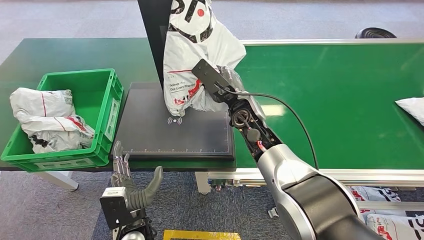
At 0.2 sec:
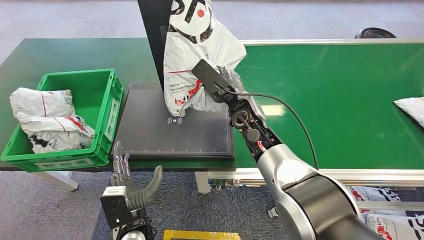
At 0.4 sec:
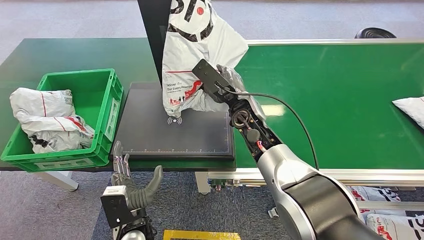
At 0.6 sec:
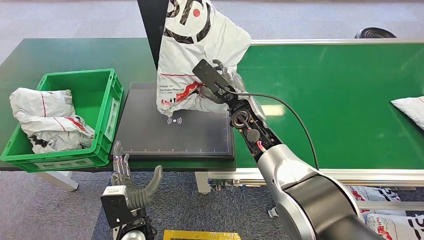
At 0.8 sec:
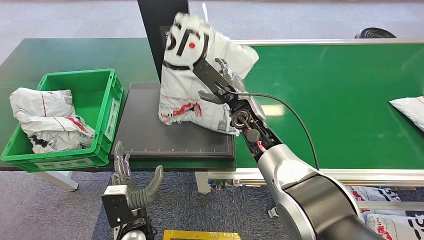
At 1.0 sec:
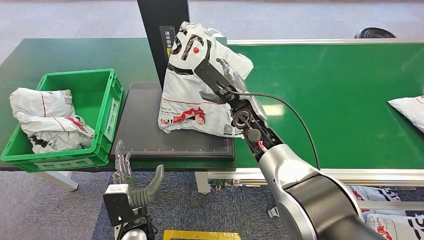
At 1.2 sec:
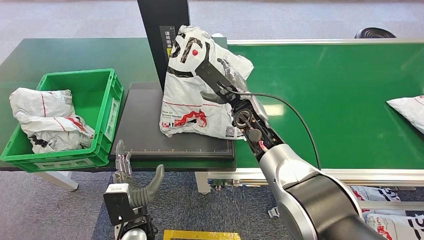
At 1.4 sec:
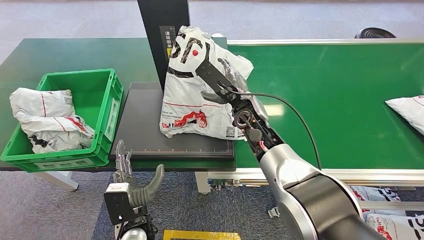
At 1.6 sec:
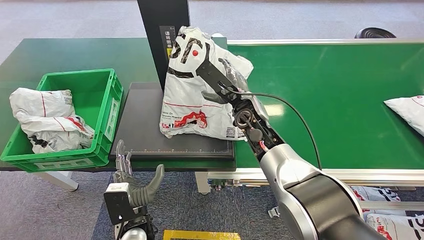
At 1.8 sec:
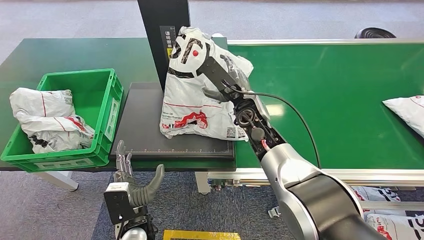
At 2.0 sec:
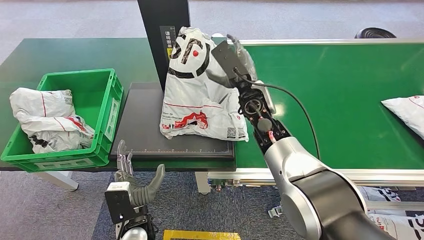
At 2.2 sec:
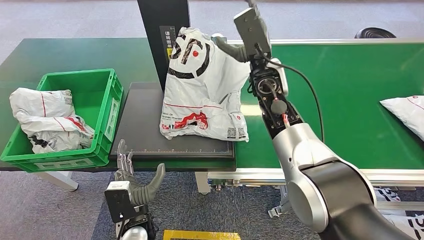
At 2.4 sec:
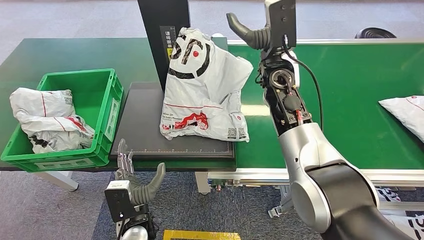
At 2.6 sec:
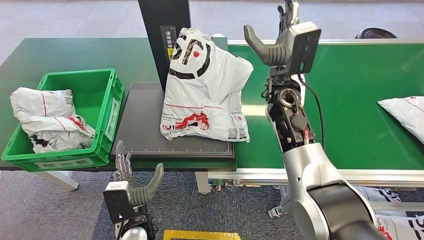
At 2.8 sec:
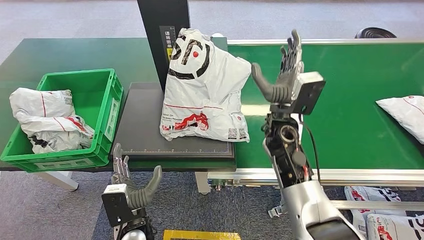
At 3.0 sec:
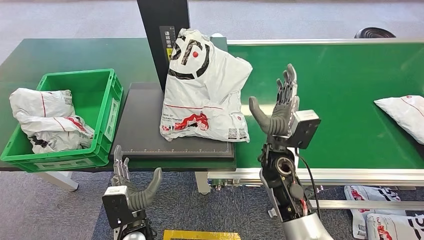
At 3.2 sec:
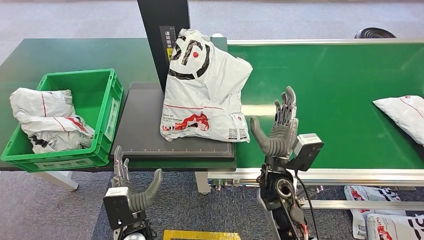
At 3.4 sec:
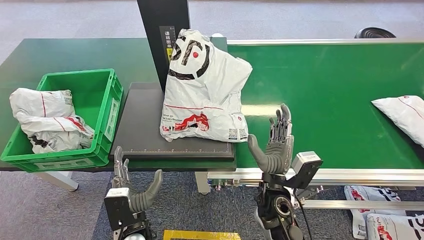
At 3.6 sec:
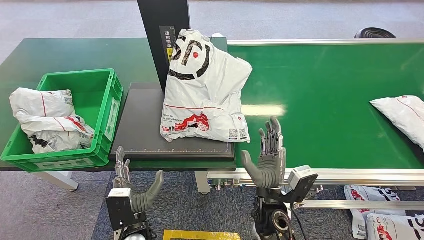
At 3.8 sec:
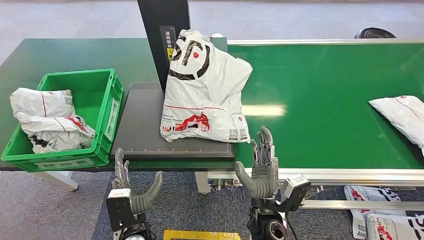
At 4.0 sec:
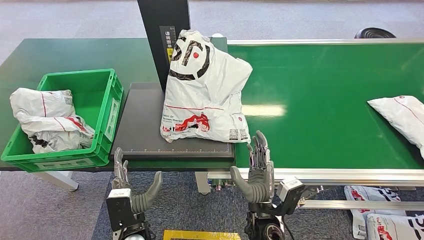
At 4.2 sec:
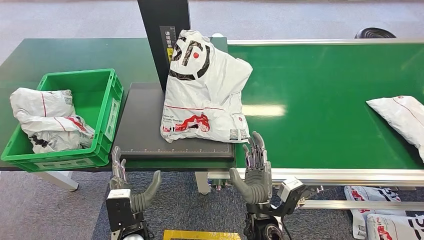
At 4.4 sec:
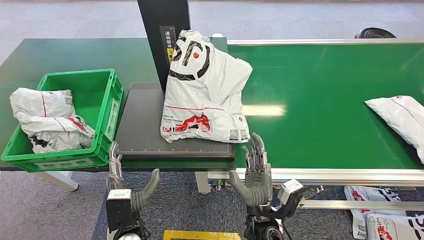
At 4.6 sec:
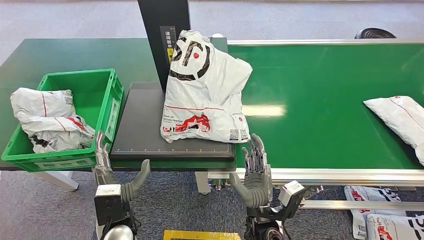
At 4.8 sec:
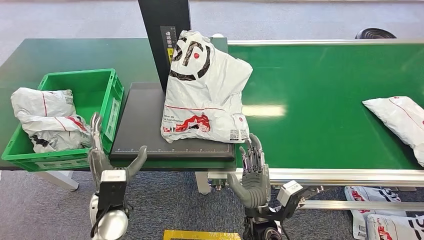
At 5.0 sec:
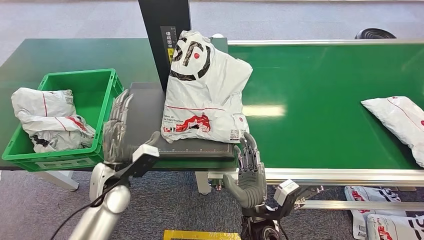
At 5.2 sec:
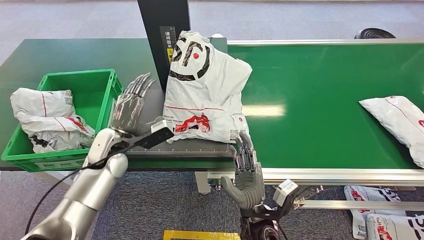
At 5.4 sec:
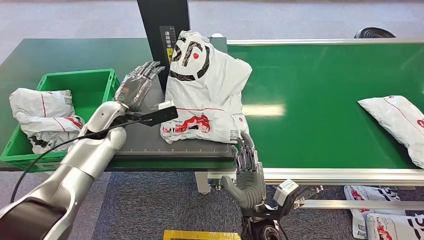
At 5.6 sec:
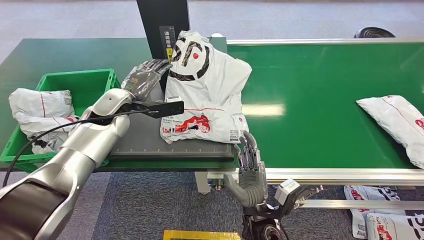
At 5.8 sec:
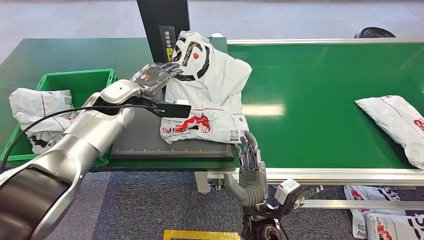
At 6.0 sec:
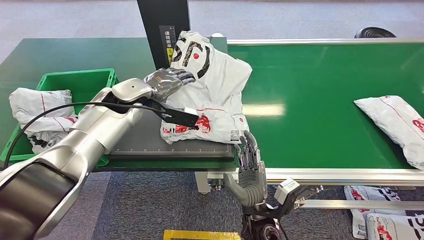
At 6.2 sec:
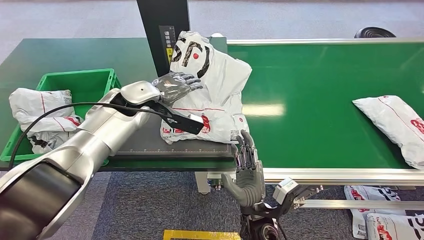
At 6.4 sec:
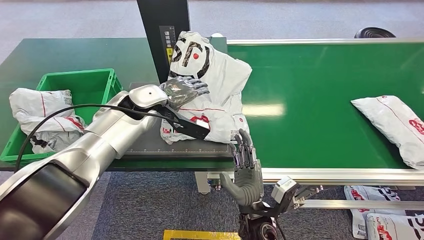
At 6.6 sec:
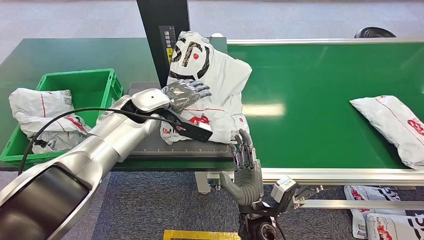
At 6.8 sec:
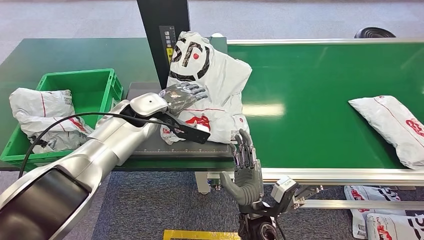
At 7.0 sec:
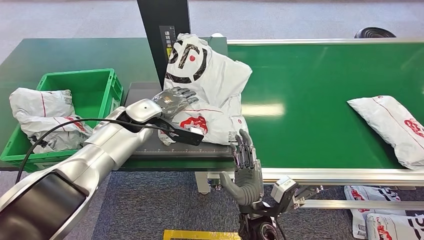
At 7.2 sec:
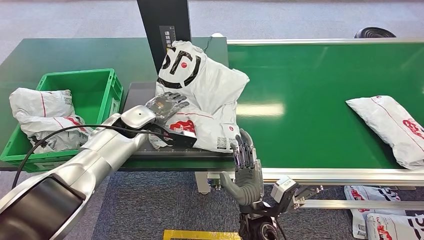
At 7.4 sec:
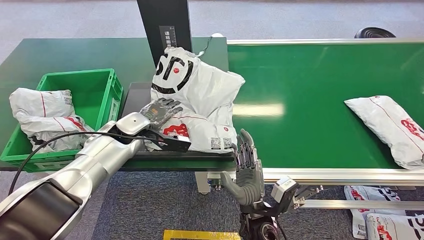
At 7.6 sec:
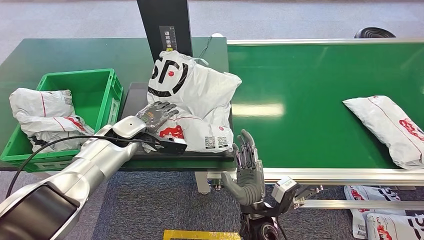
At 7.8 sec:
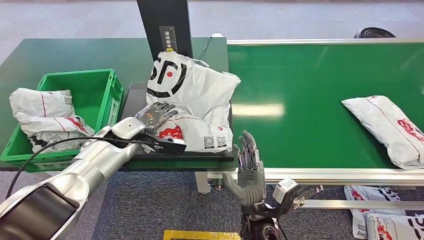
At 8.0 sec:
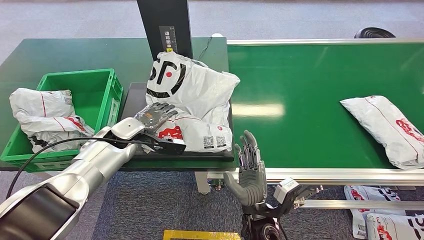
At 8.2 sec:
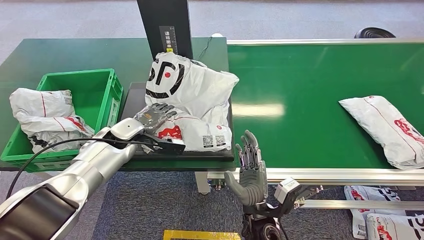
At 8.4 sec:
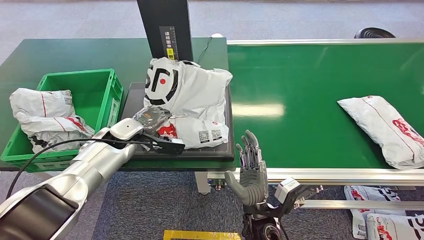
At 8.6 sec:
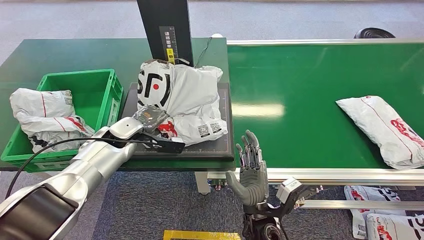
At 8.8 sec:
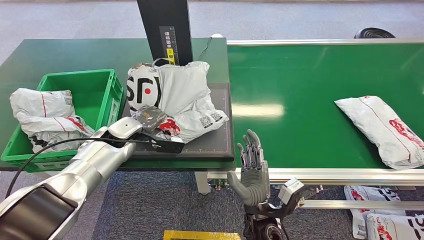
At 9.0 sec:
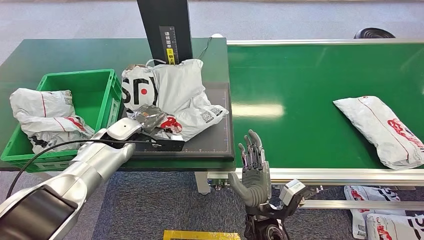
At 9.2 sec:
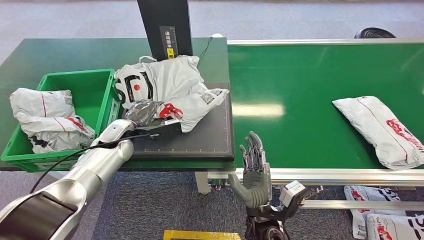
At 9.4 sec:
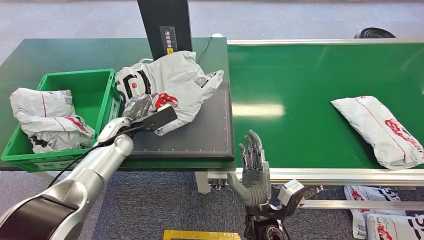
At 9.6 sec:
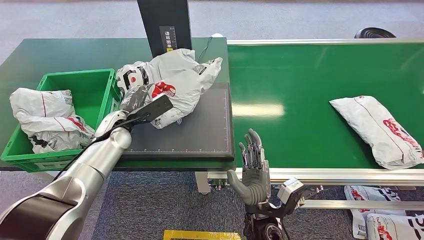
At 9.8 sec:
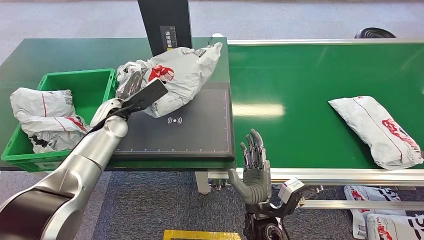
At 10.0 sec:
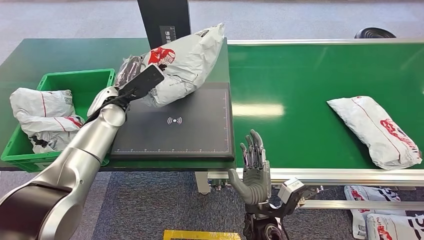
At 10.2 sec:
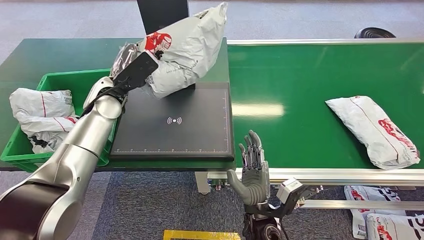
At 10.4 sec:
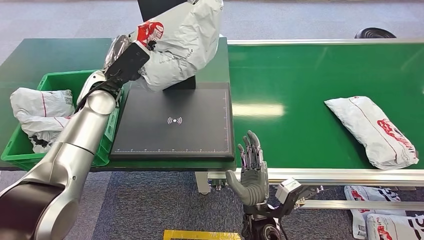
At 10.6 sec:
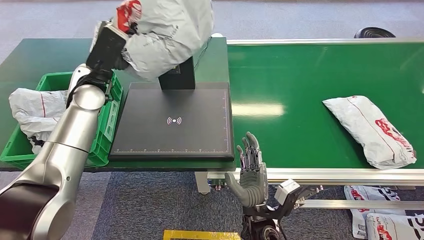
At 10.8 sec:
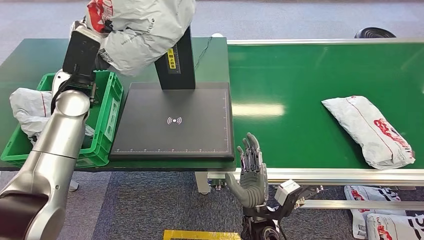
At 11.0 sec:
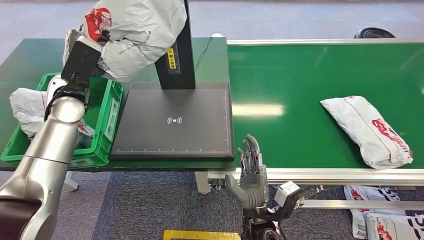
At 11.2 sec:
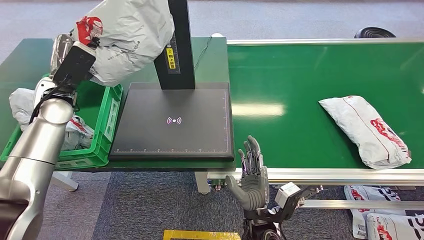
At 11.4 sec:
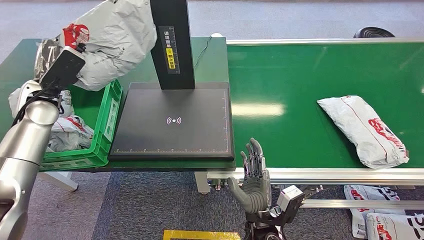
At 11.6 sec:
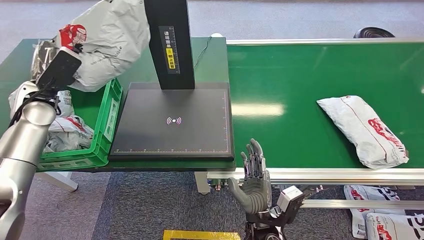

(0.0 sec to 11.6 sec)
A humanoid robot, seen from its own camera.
Step, 0.0 sec - 2.6 sec: Place the package onto the inbound machine.
Step, 3.0 sec - 10.0 sec: Pick up the package from the inbound machine.
0.0 sec - 1.4 sec: The two hands keep their place.
1.4 sec - 2.8 sec: The right hand is displaced to the right by about 5 cm, and travels upward and back again, roughly 10 cm each way.
2.8 sec - 4.4 sec: The right hand goes some 25 cm backward and downward.

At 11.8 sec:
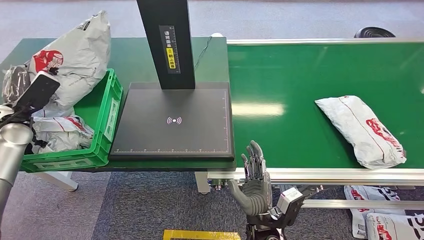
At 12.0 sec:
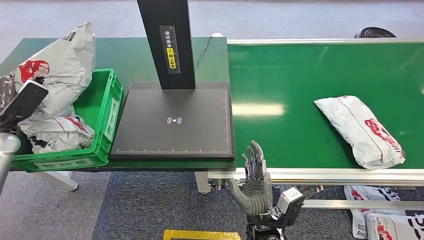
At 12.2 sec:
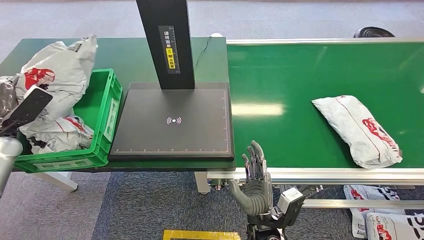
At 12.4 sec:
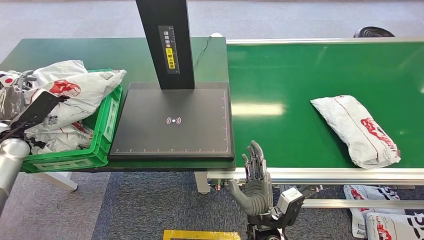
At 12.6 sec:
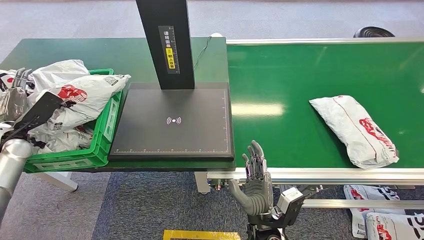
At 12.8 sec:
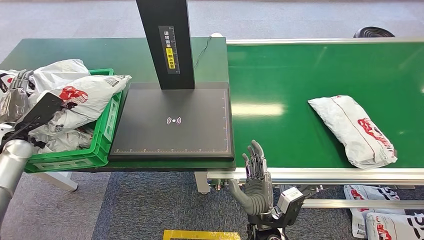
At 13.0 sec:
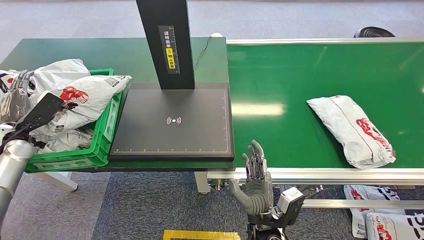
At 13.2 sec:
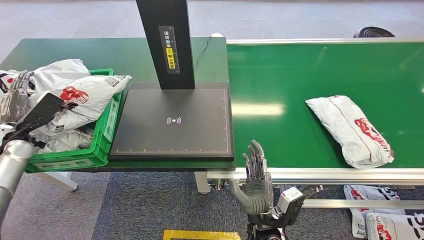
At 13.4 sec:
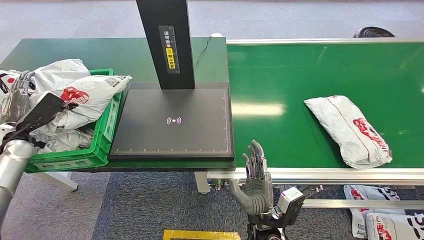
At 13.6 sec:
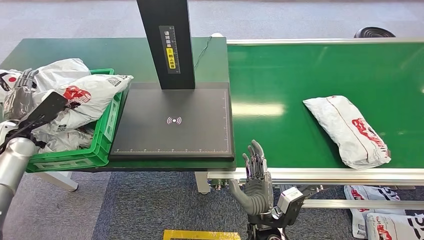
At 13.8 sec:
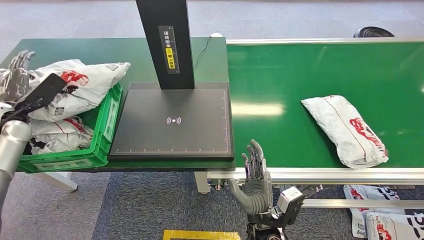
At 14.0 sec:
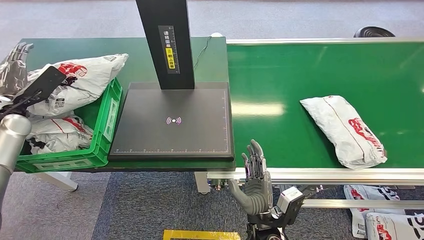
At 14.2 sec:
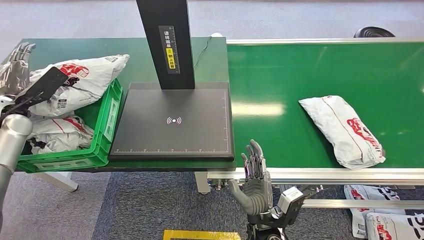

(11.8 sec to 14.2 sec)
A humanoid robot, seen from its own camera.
Step, 11.8 sec - 14.2 sec: Place the package into the parcel locker.
11.8 sec - 13.0 sec: The left hand heads downward, covering some 5 cm.
13.0 sec - 14.2 sec: The left hand is displaced upward by roughly 5 cm.
